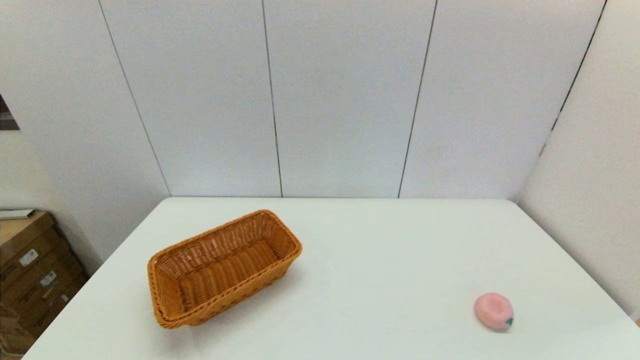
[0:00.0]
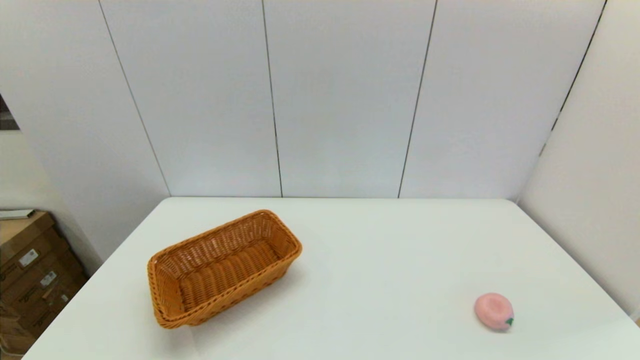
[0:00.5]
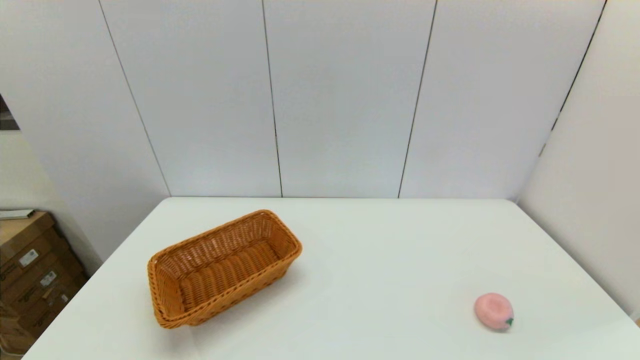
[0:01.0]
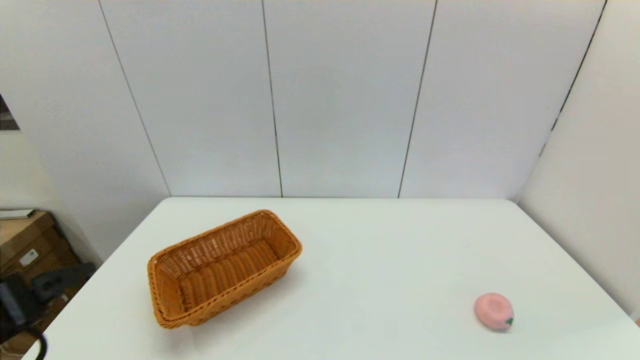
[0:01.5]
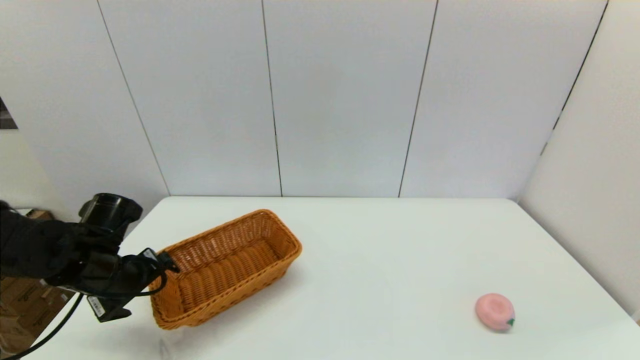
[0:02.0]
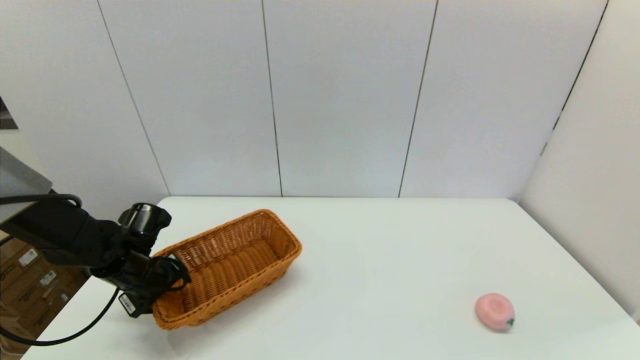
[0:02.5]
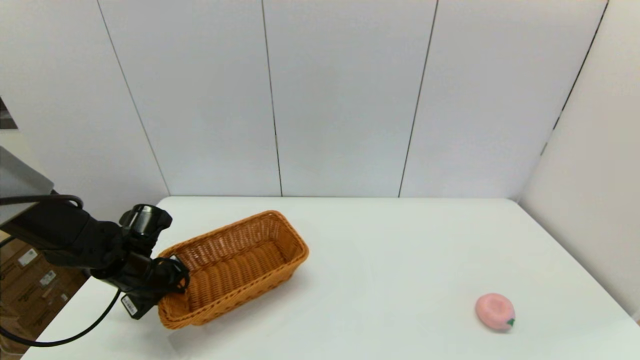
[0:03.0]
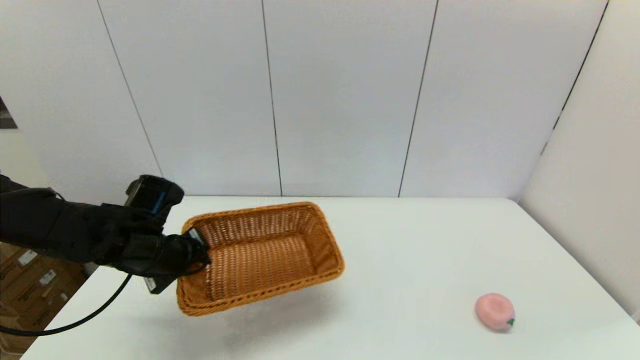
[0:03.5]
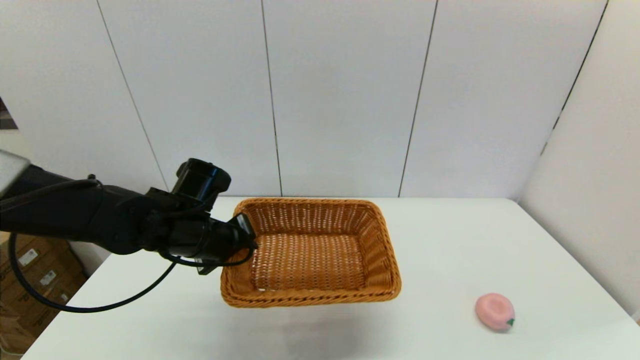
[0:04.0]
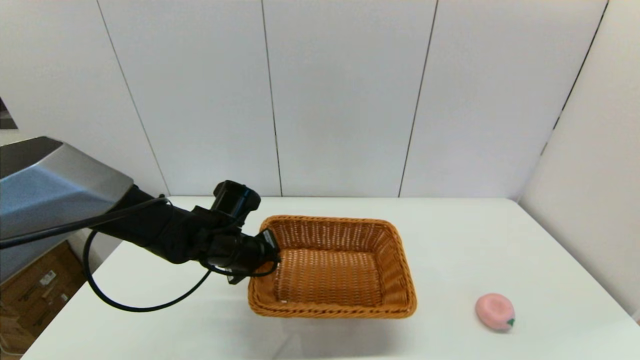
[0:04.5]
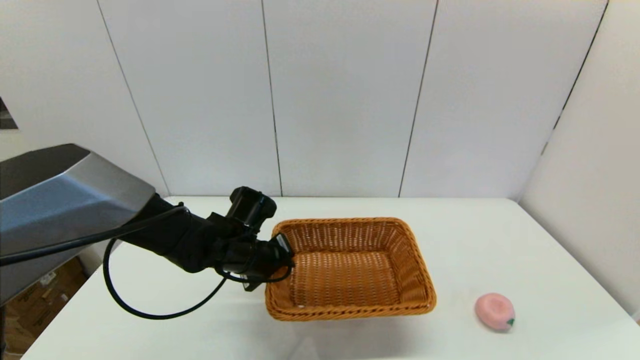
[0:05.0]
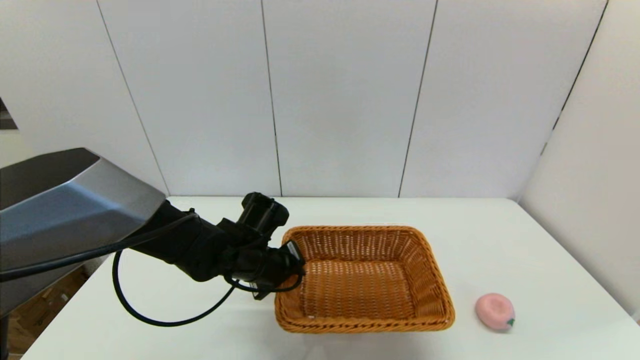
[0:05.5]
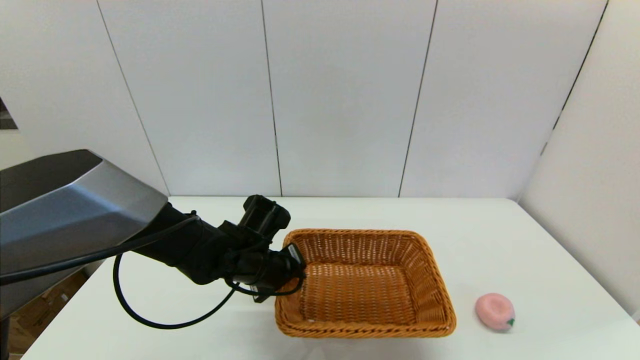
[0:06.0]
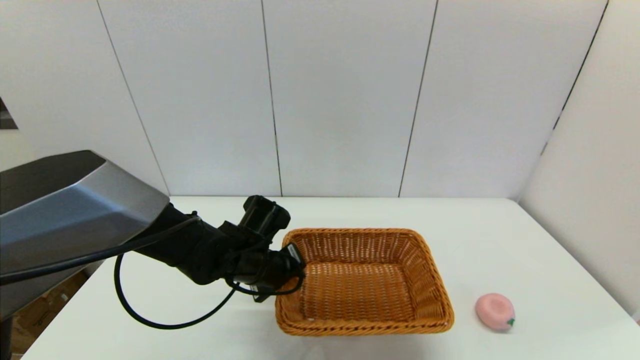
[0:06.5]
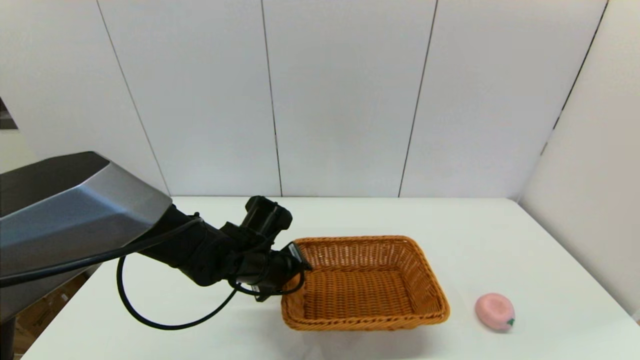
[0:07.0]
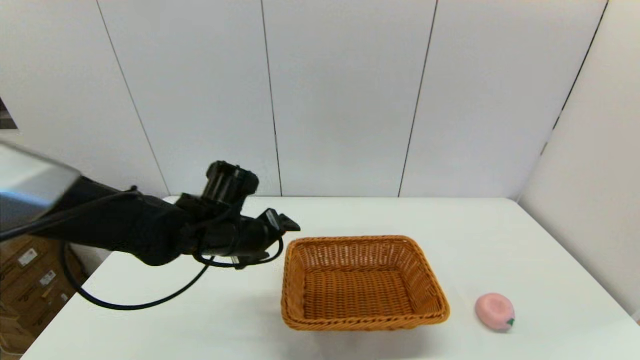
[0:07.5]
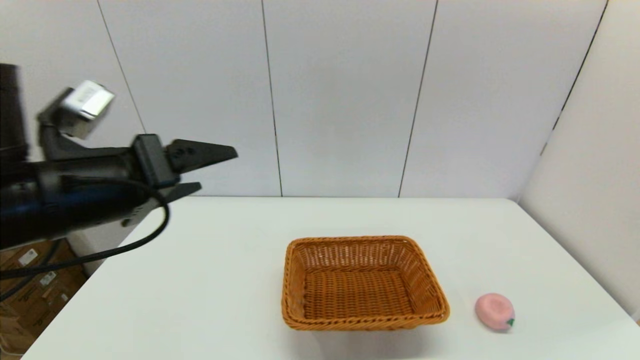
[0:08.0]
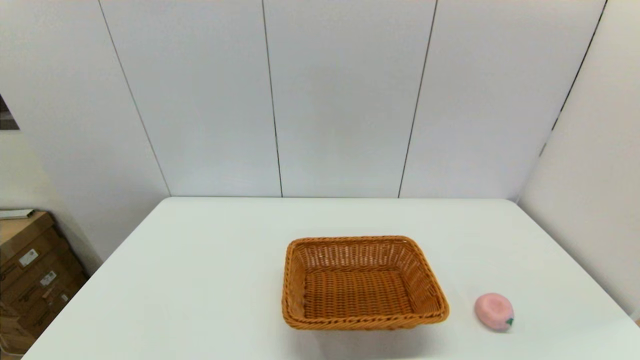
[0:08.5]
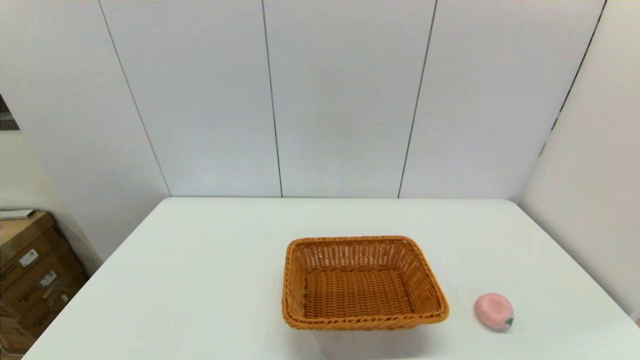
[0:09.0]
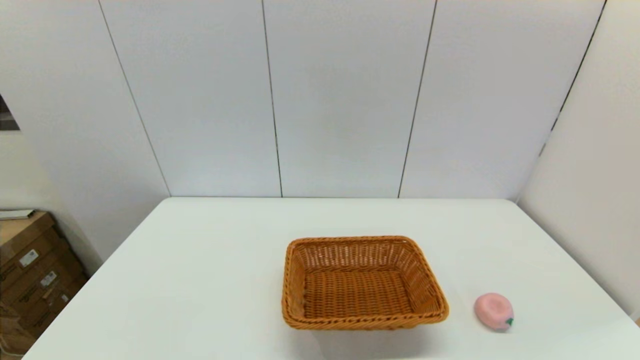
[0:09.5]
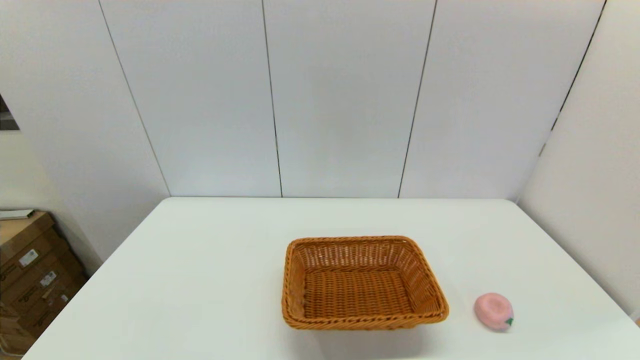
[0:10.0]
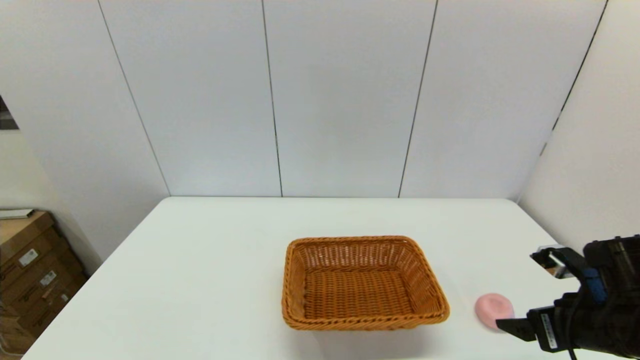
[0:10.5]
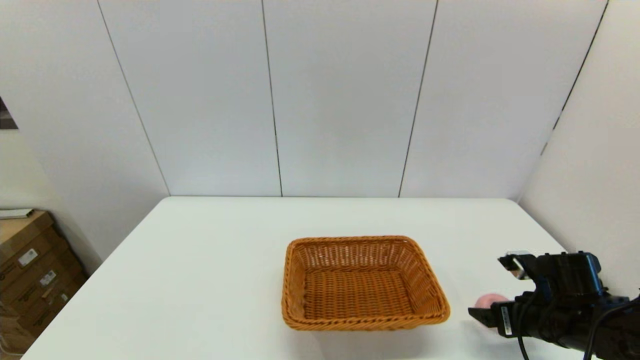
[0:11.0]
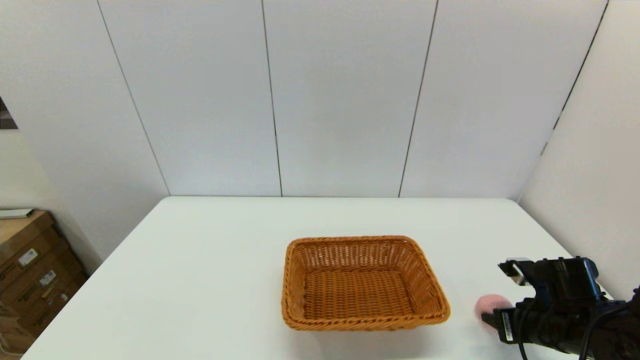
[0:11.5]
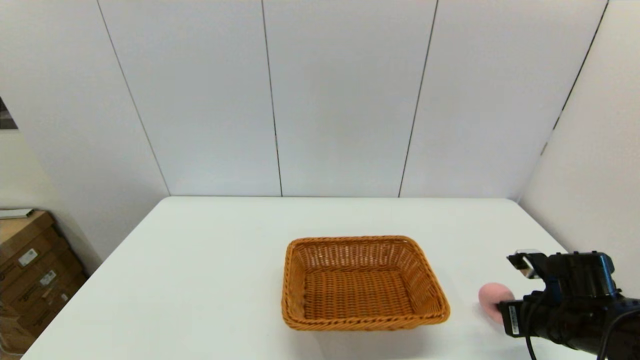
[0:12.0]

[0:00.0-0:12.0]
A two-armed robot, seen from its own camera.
Step, 0:00.0 to 0:03.0: Grasp the light basket with the left gripper.
Step, 0:03.5 to 0:07.0: Place the light basket on the middle of the table with the left gripper.
Step, 0:07.5 to 0:11.5: Grasp the peach with the right gripper.
0:00.0 to 0:02.0: The left gripper heads forward, covering some 30 cm.
0:02.0 to 0:04.0: The left gripper goes about 15 cm to the right, and closes its fingers.
0:04.0 to 0:06.0: The left gripper goes about 10 cm to the right and downward.
0:06.0 to 0:08.0: The left gripper travels upward, backward and to the left by approximately 30 cm, and opens its fingers.
0:08.0 to 0:10.0: The left gripper is displaced downward, backward and to the left by some 30 cm.
0:10.0 to 0:12.0: The right gripper shifts approximately 20 cm forward and downward, and closes up.

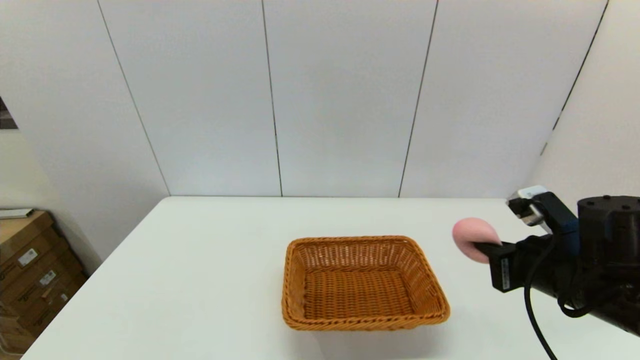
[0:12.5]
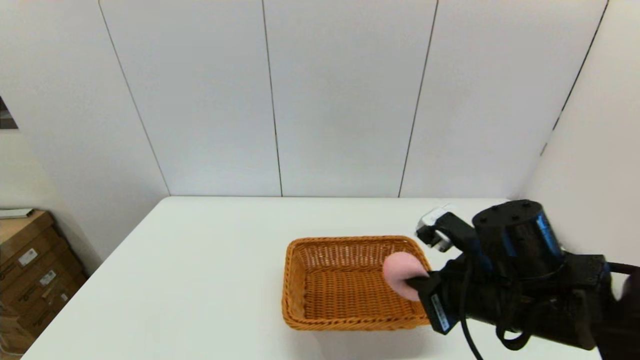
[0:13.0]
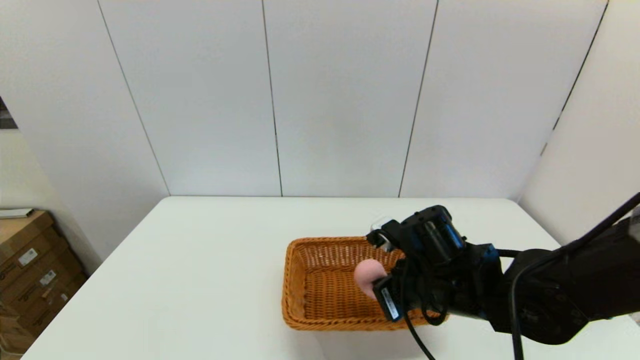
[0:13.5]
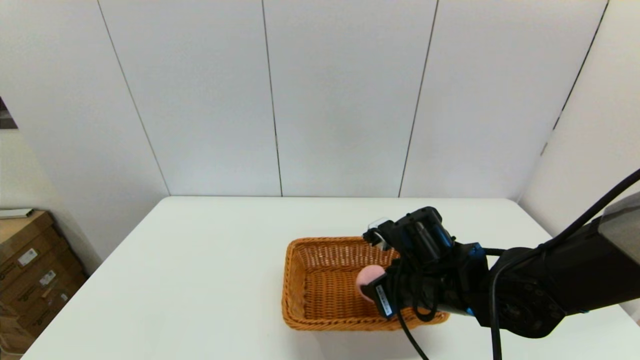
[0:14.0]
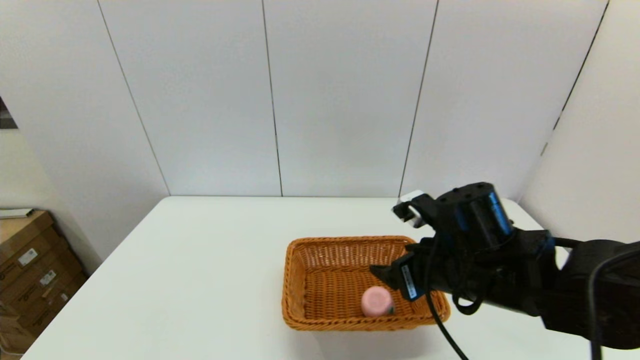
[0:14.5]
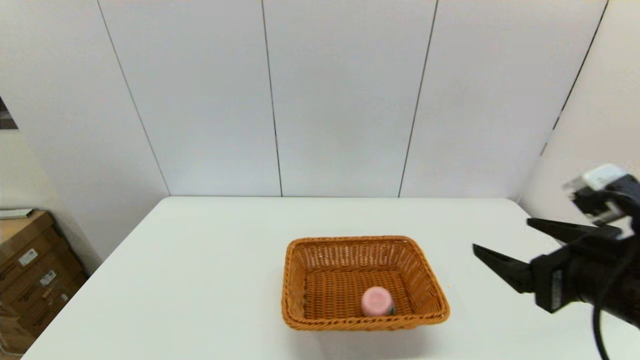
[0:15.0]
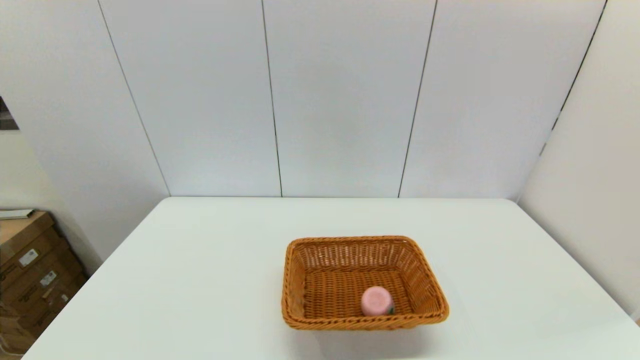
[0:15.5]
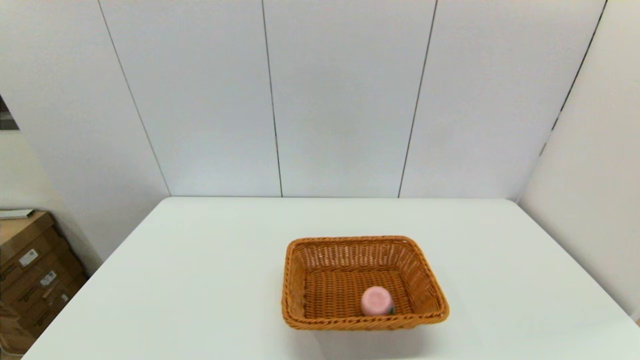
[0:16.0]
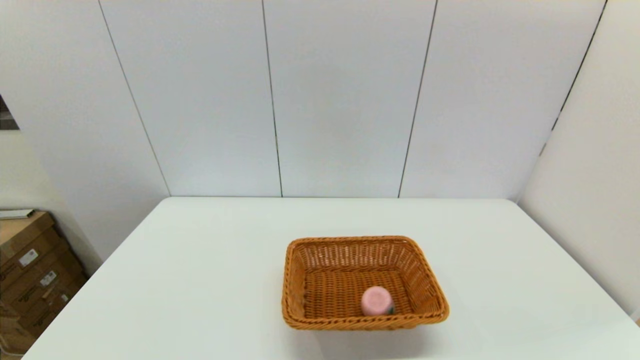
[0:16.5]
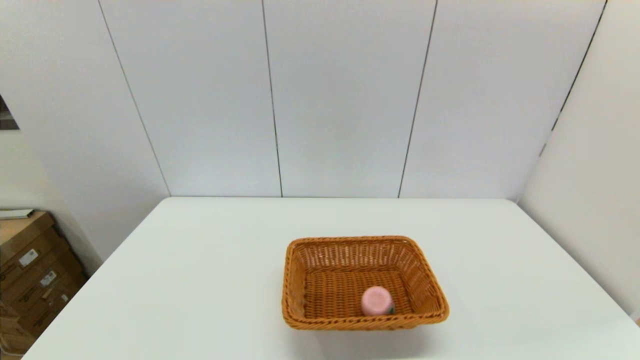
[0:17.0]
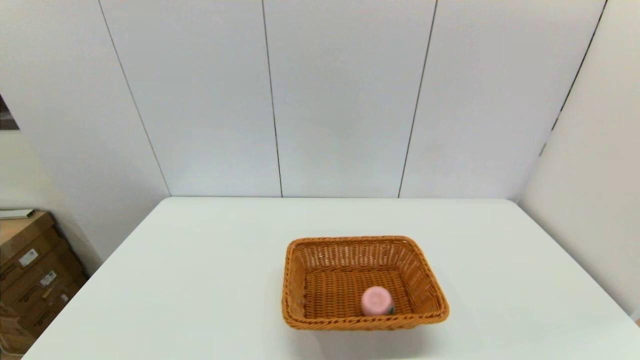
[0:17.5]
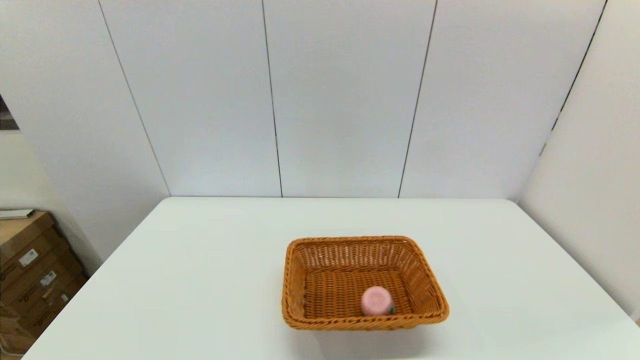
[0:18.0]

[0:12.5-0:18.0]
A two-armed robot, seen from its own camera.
Step, 0:12.5 to 0:14.0: Place the peach into the light basket with the right gripper.
0:12.5 to 0:14.5: The right gripper shifts about 10 cm to the left, and opens up.
0:14.5 to 0:16.0: The right gripper is displaced backward and to the right by approximately 30 cm.
